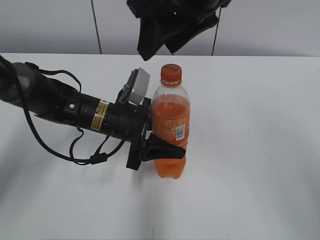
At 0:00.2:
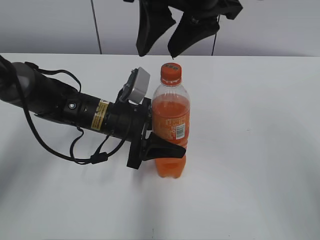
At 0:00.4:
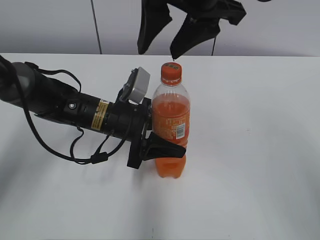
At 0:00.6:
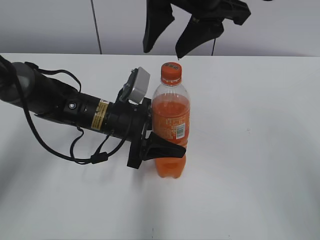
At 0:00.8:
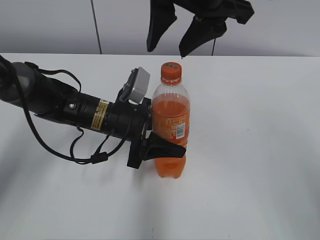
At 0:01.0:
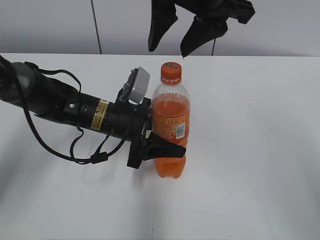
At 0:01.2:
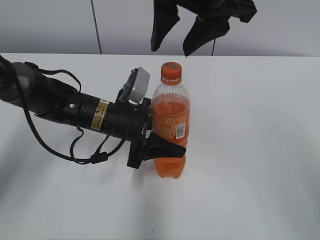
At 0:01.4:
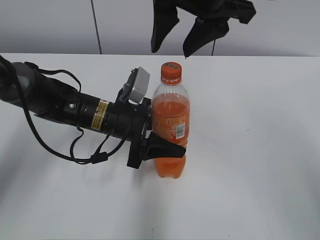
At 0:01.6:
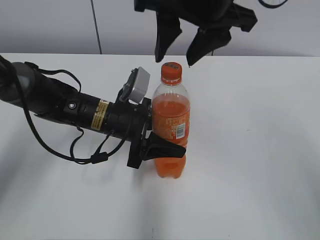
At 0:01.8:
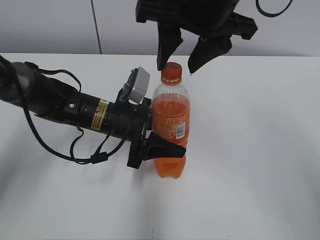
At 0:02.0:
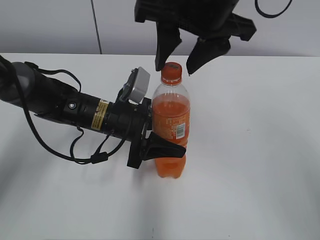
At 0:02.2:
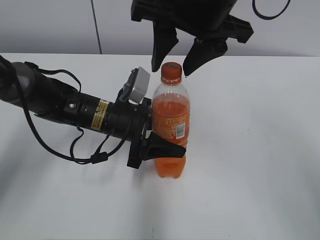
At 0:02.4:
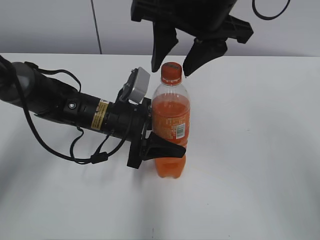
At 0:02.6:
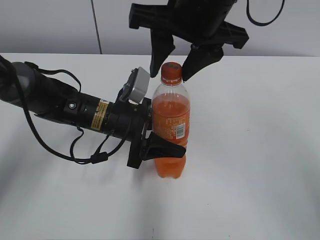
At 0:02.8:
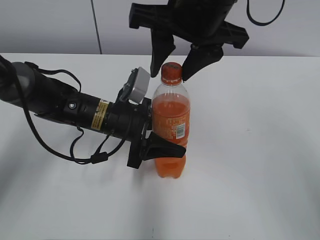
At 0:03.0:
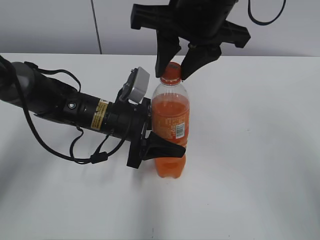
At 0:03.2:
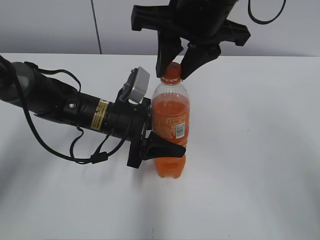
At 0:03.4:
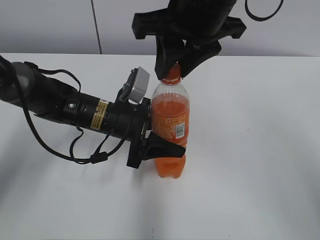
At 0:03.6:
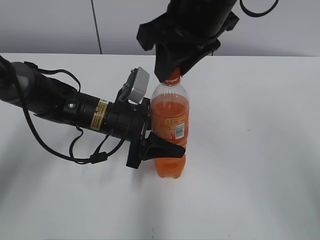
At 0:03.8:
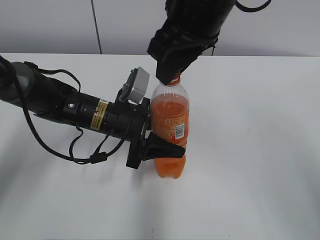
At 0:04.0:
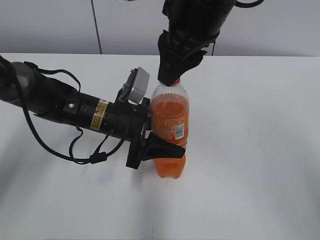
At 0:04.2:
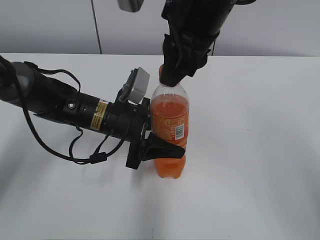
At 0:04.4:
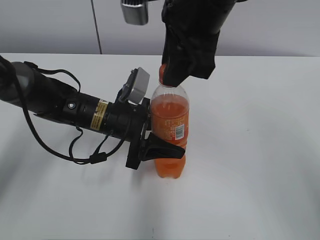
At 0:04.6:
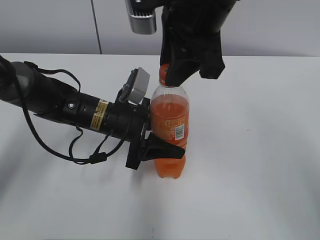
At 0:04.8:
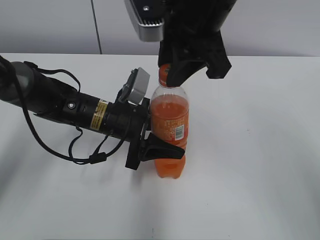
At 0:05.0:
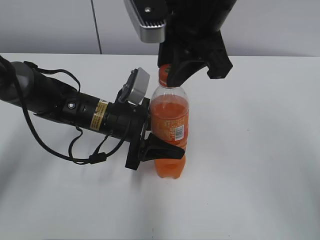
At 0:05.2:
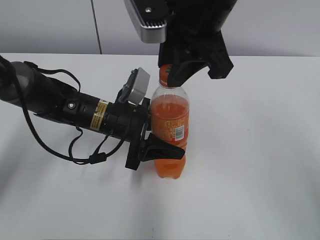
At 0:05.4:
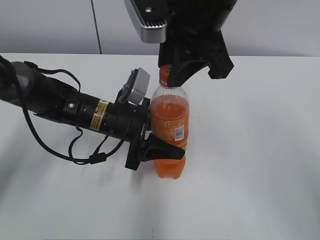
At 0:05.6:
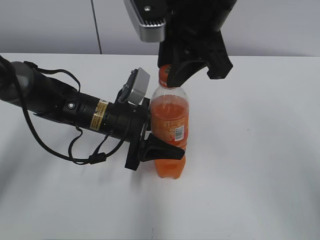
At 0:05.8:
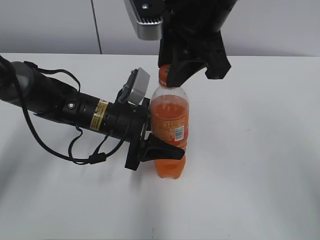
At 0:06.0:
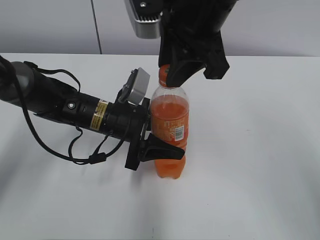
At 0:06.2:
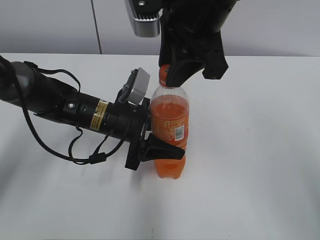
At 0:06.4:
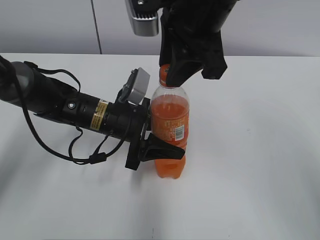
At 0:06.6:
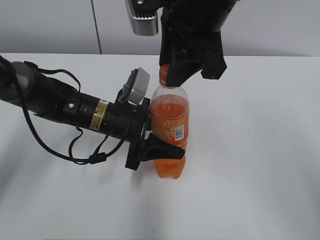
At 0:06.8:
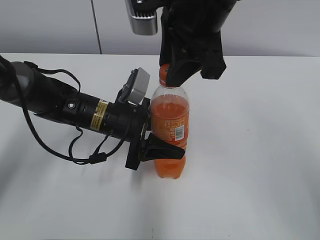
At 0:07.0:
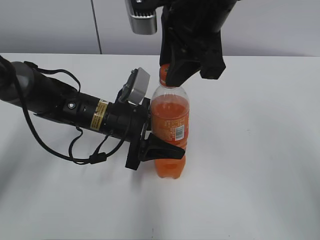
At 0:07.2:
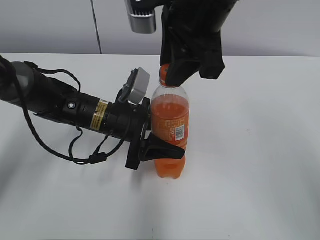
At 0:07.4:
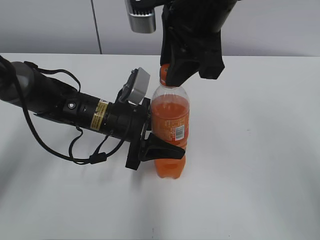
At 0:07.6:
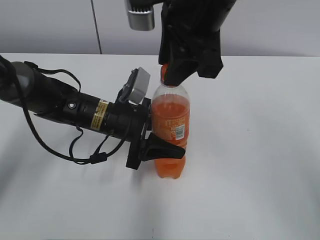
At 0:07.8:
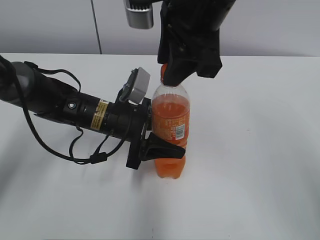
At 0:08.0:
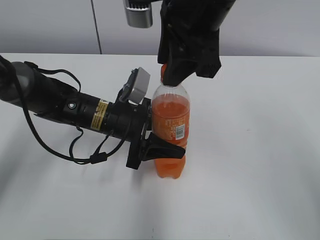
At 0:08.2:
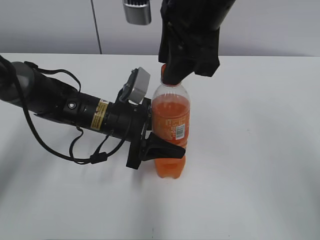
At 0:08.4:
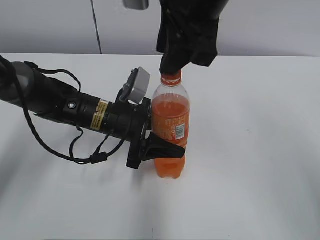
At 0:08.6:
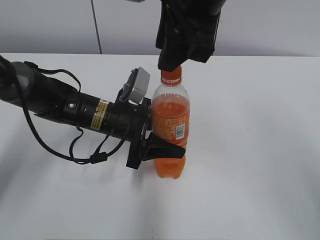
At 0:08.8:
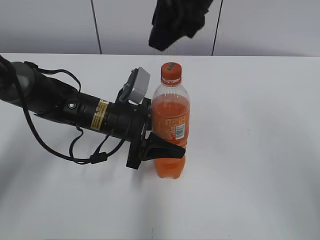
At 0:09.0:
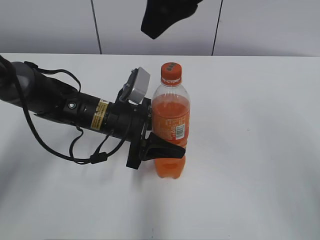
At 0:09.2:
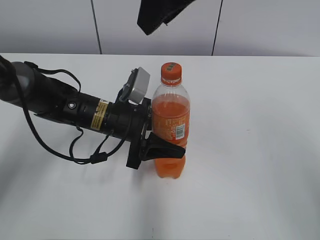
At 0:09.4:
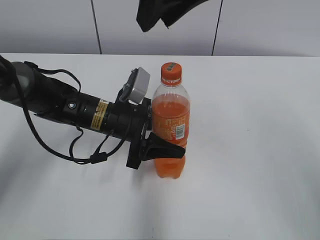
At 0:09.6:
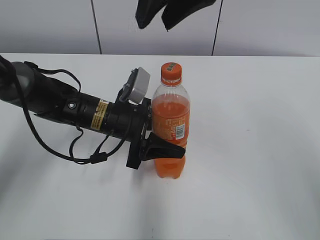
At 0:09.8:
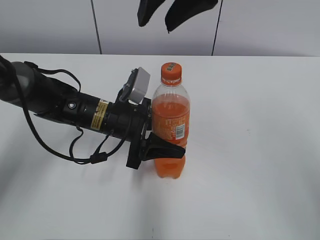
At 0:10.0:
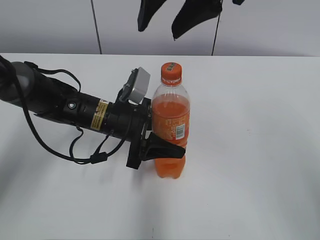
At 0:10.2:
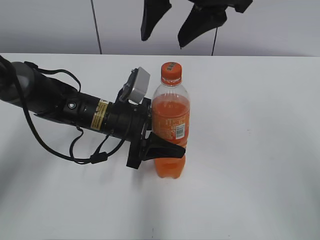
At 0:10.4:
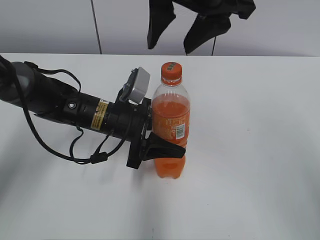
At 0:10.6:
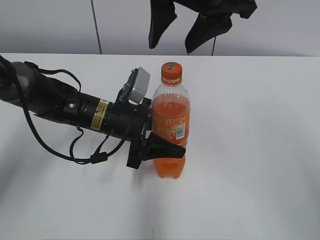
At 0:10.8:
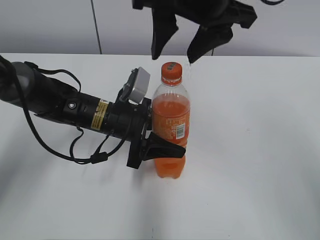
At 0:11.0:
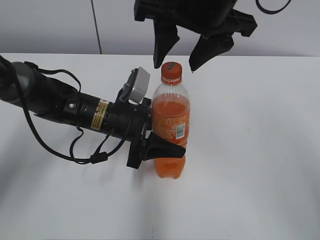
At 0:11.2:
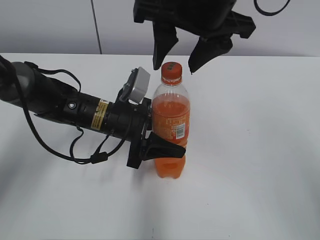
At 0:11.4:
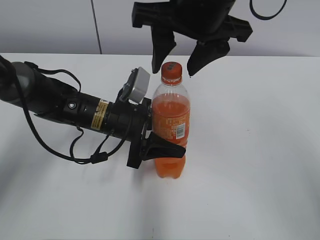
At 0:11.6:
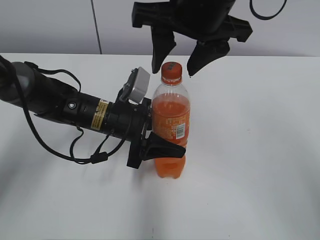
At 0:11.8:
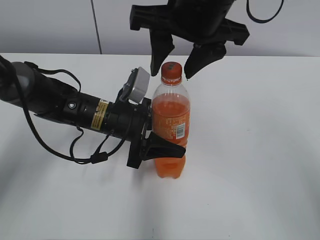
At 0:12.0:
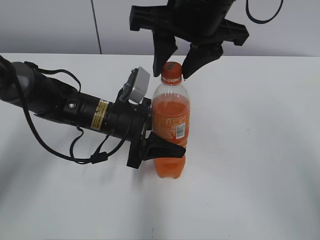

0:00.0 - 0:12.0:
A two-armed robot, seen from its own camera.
0:01.6 - 0:03.0: The right gripper closes its fingers.
0:04.4 - 0:07.6: The grippers stay close to where they were, moving slightly.
0:07.6 - 0:09.0: The right gripper travels upward by approximately 5 cm.
0:09.0 - 0:10.4: The right gripper opens.
0:10.4 - 0:12.0: The right gripper closes up.

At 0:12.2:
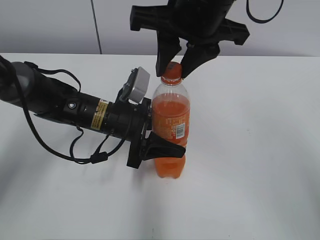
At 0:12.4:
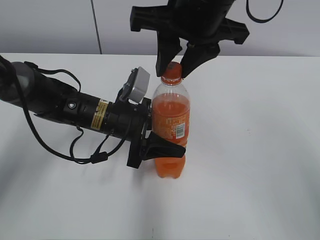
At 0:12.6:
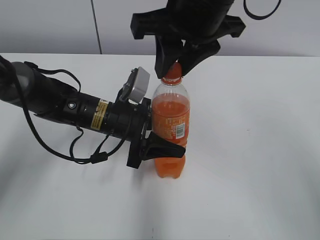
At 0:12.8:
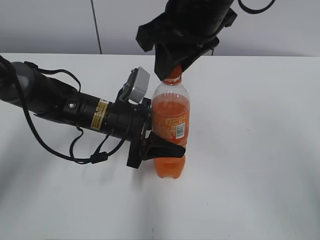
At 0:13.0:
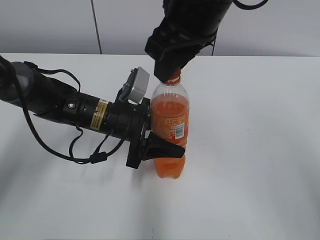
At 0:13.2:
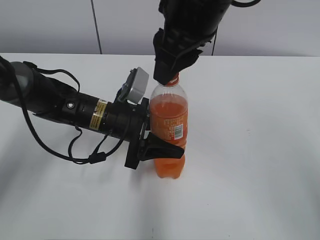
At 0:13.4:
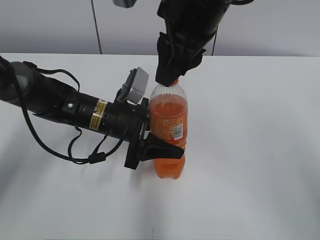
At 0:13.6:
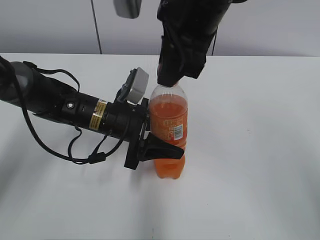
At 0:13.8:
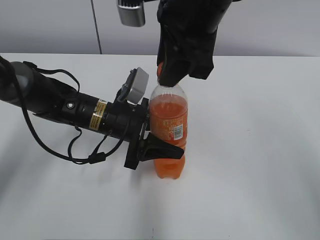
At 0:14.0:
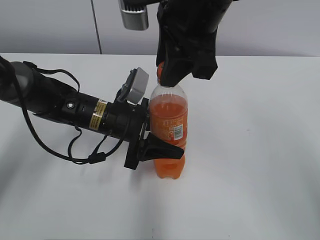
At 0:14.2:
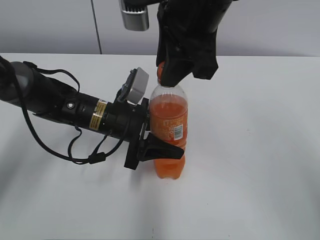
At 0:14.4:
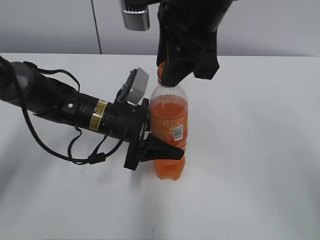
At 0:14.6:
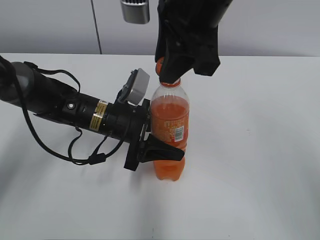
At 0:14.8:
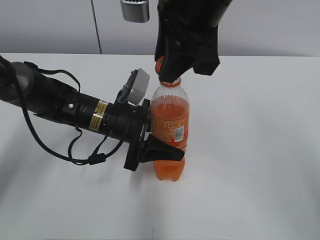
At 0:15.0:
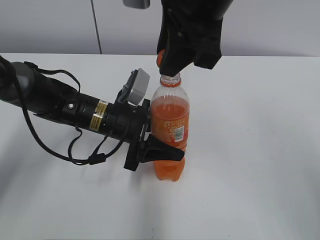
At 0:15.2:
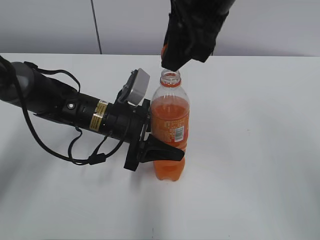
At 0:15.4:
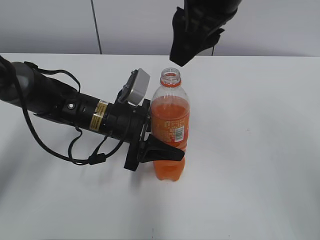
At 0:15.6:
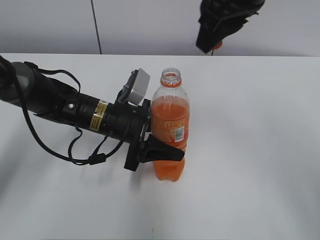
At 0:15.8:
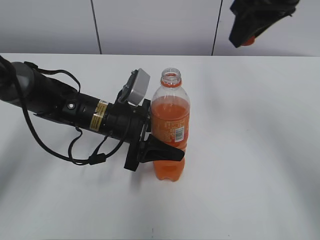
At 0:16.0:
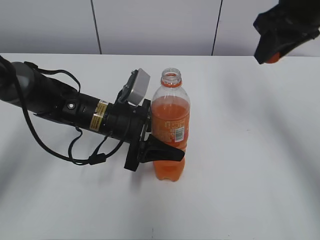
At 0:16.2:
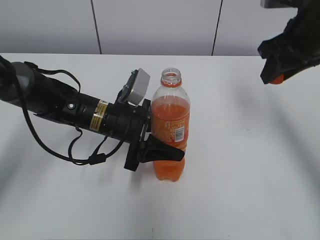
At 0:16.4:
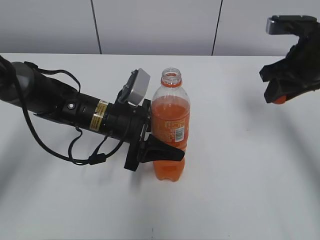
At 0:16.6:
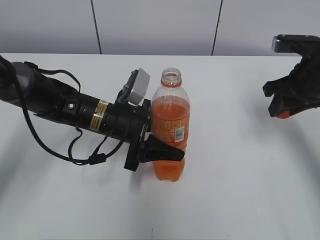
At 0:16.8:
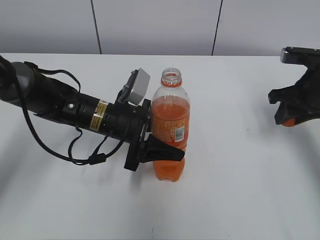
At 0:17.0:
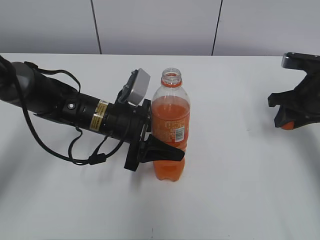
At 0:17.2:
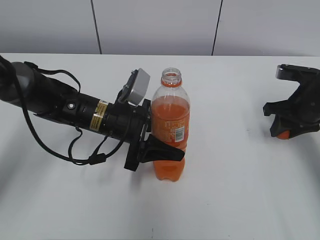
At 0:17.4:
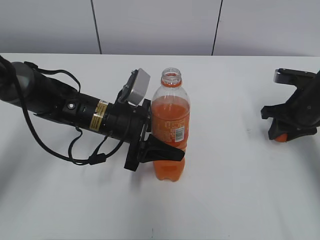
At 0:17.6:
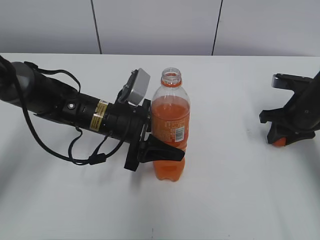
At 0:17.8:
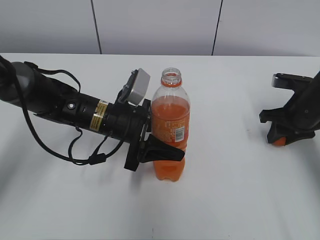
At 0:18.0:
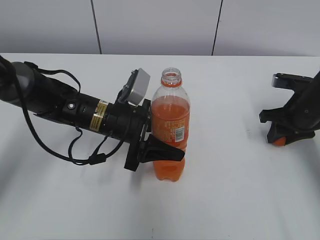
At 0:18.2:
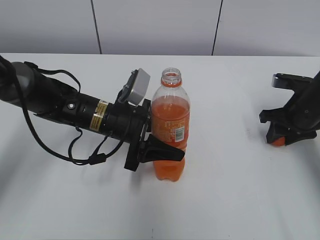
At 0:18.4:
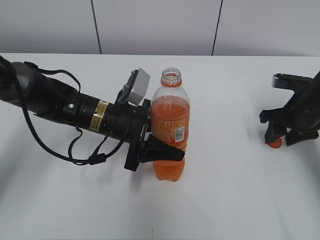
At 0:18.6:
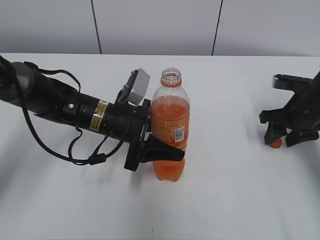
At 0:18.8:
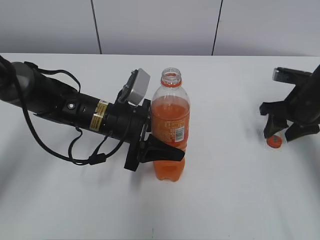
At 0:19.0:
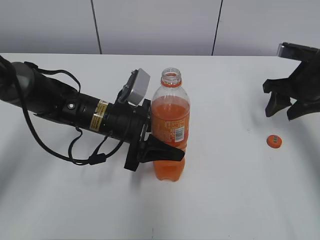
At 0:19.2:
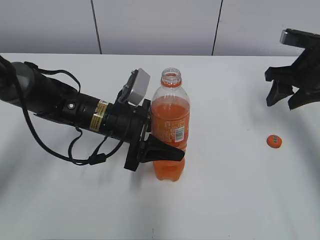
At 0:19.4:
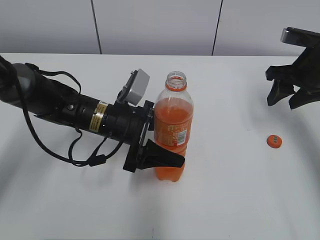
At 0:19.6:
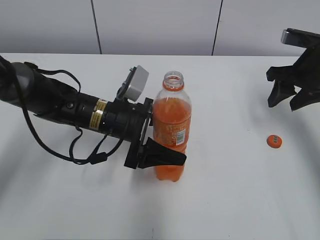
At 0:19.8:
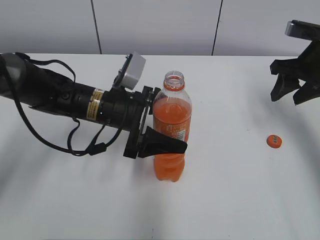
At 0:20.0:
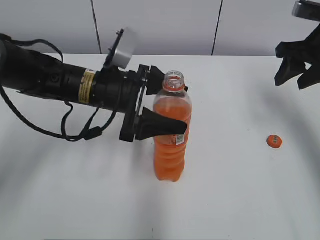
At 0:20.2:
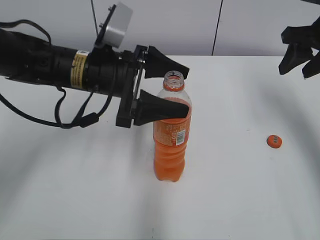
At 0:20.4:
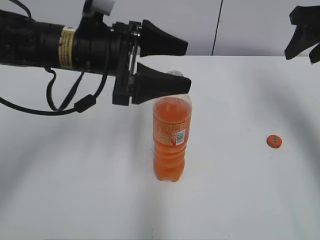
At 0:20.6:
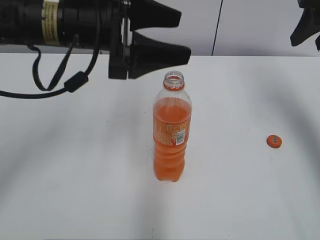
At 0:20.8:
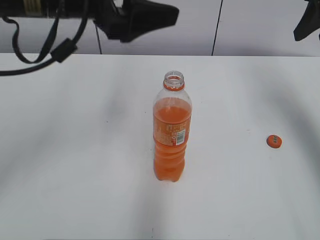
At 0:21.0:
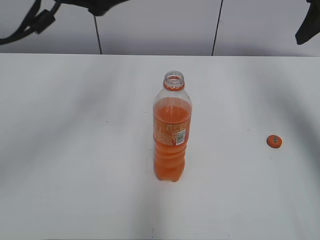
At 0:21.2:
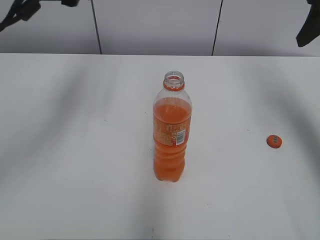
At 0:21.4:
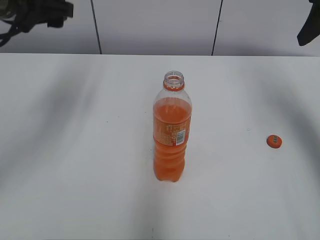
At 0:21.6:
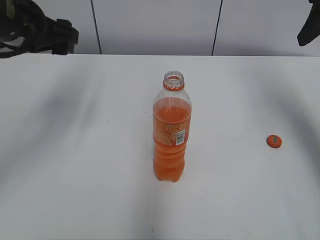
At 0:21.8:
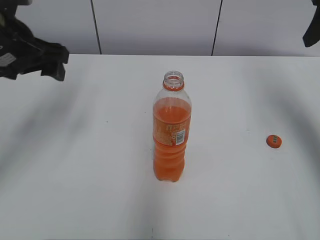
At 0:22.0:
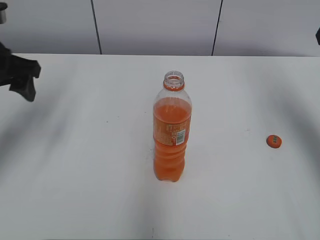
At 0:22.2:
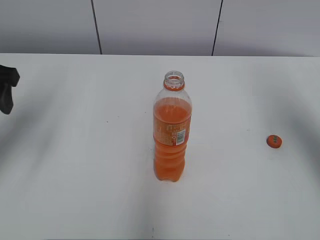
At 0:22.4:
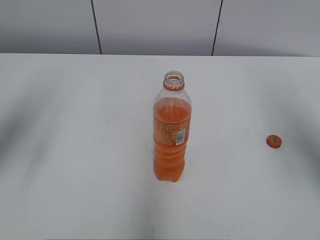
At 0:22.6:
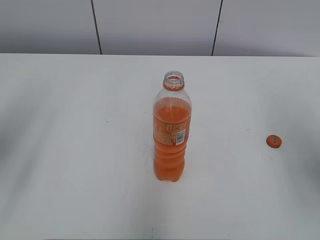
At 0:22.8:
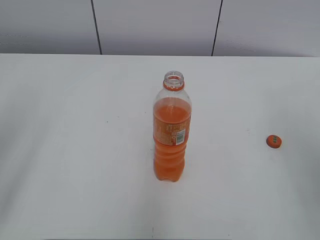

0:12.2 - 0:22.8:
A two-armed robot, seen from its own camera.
Step, 0:12.2 - 0:14.8: Fix the Mirinda on the left.
Step, 0:15.0 - 0:18.6: Place the bottle cap on the right.
0:13.8 - 0:15.2: There are only small adjustments of the grippers.
0:15.2 - 0:16.8: The right gripper heads to the right and downward, covering approximately 30 cm.
0:16.8 - 0:18.2: The right gripper travels downward by roughly 5 cm.
0:18.2 - 0:19.8: The right gripper travels upward by some 10 cm, and opens; the left gripper opens.
0:19.8 - 0:21.2: The left gripper shifts approximately 25 cm upward and to the left; the right gripper goes roughly 15 cm upward.
0:21.2 - 0:22.8: The left gripper goes approximately 25 cm backward and to the left. Meanwhile the right gripper heads backward, covering about 25 cm.
